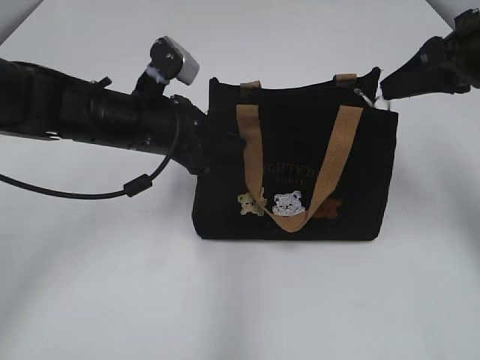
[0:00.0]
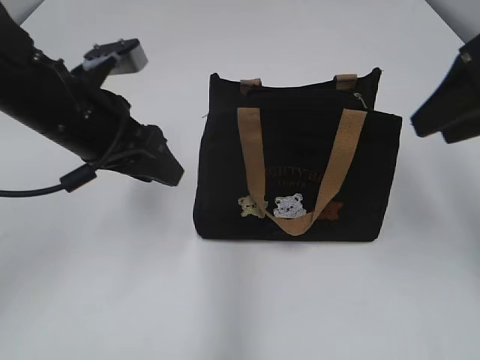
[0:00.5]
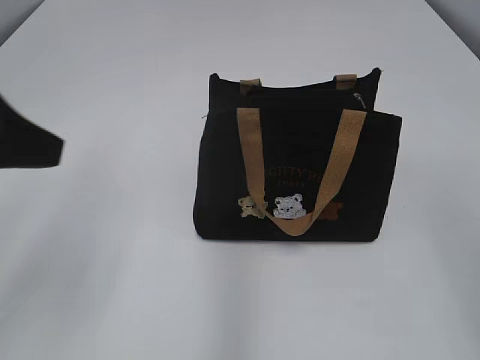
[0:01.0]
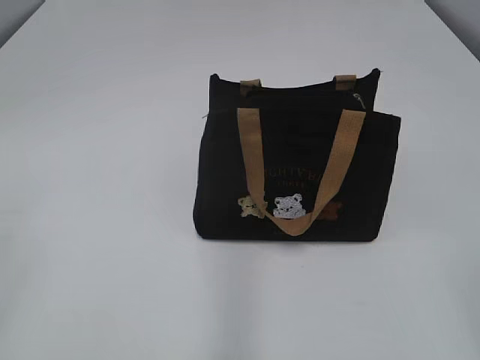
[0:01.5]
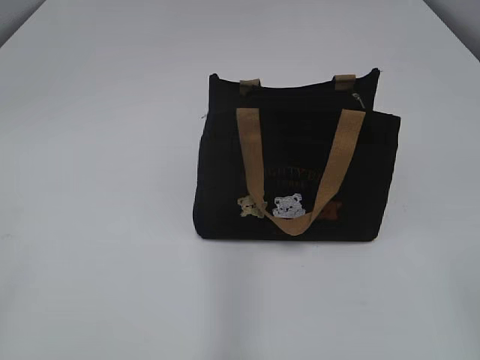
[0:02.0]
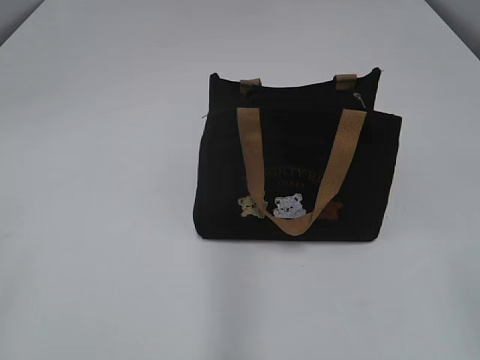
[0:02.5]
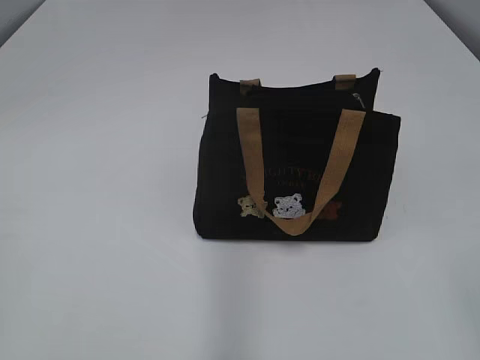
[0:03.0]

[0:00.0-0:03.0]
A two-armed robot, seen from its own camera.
0:00.0 to 0:01.5: The left gripper moves backward, upward and to the left, some 30 cm, and opens its fingers. Meanwhile the right gripper goes roughly 25 cm backward, and opens up.

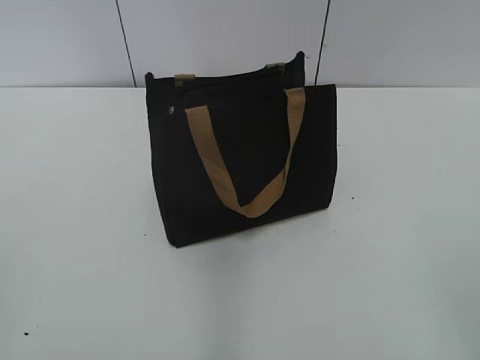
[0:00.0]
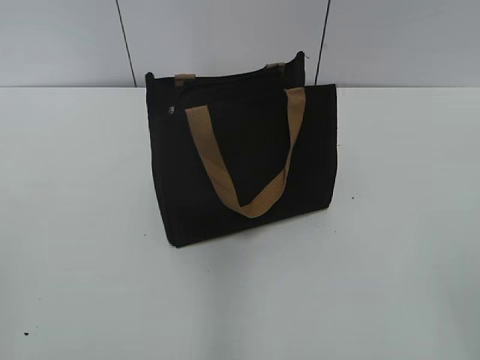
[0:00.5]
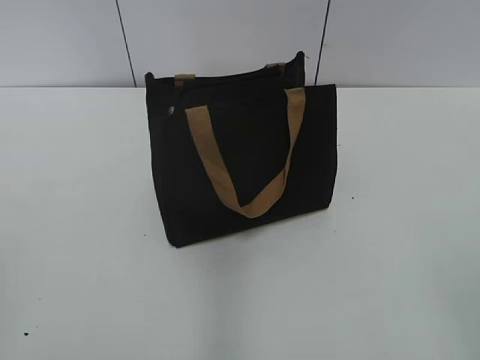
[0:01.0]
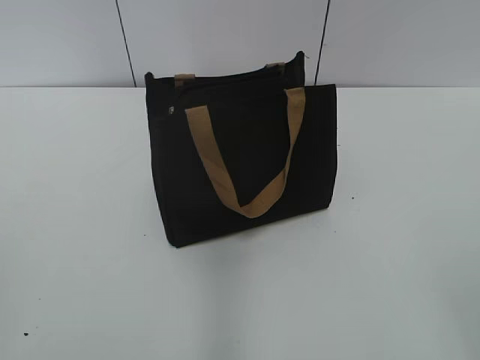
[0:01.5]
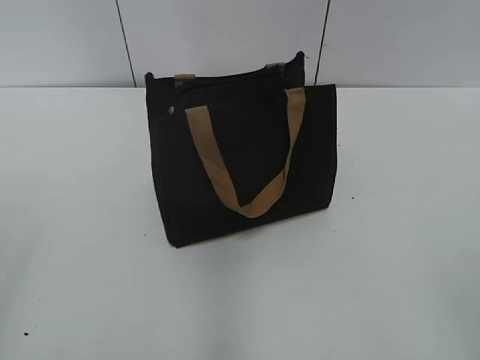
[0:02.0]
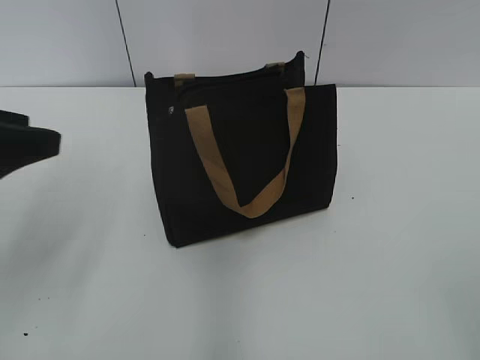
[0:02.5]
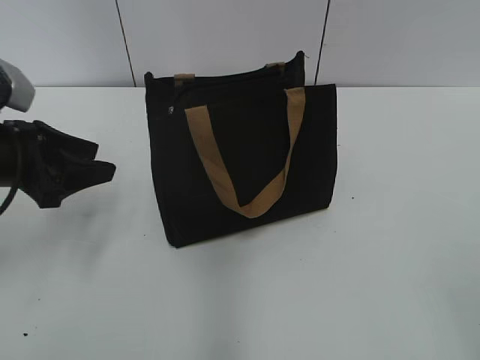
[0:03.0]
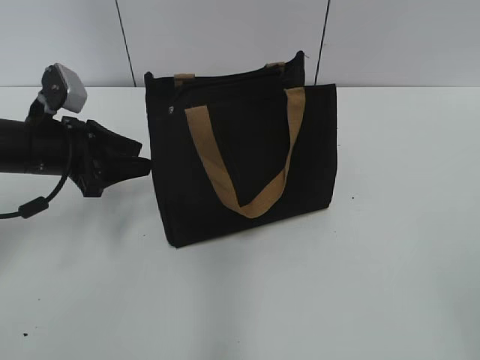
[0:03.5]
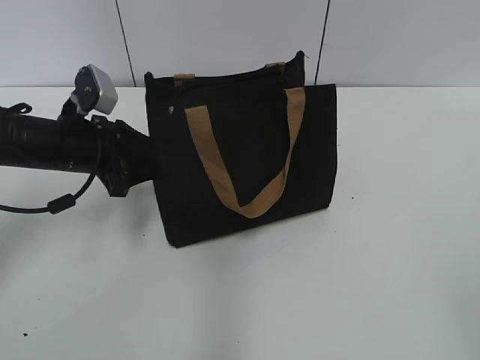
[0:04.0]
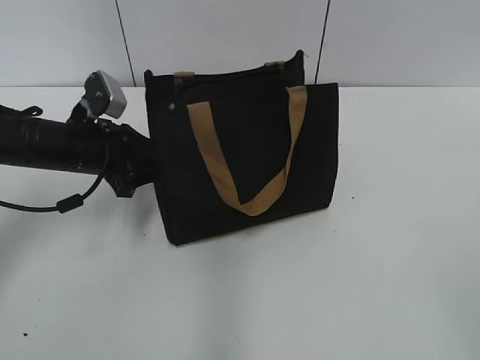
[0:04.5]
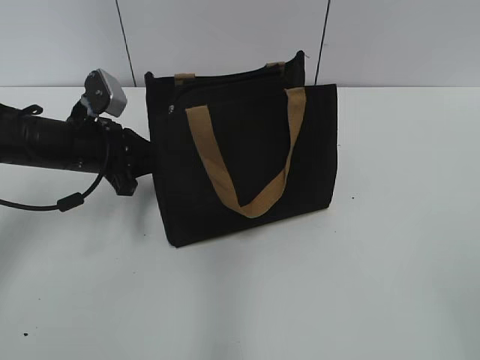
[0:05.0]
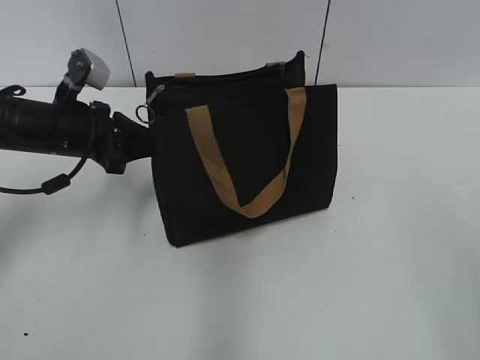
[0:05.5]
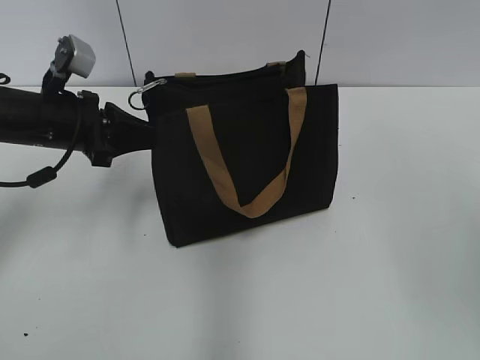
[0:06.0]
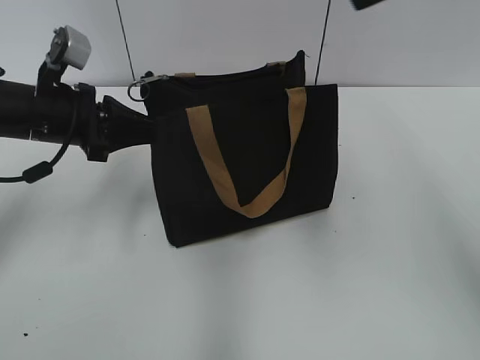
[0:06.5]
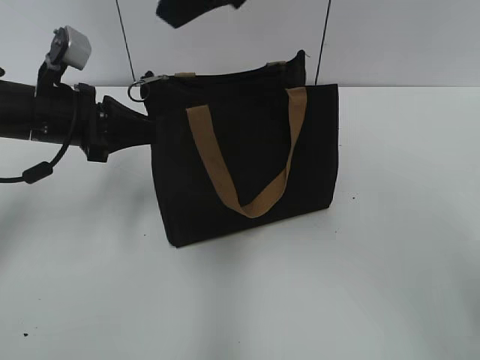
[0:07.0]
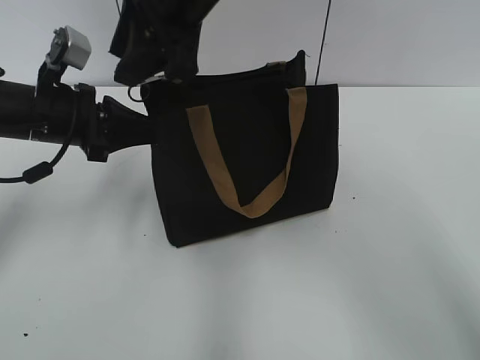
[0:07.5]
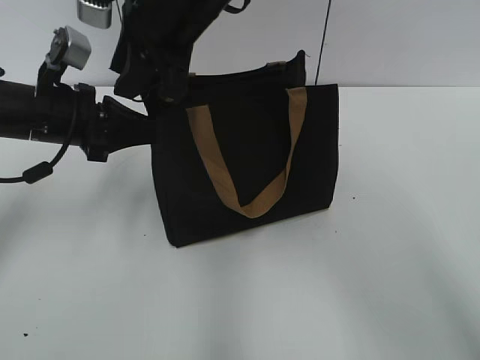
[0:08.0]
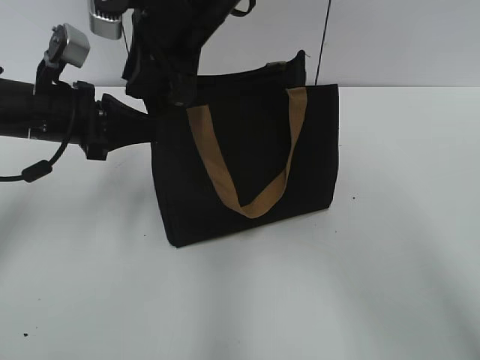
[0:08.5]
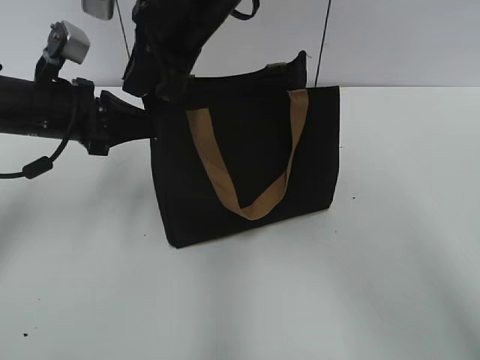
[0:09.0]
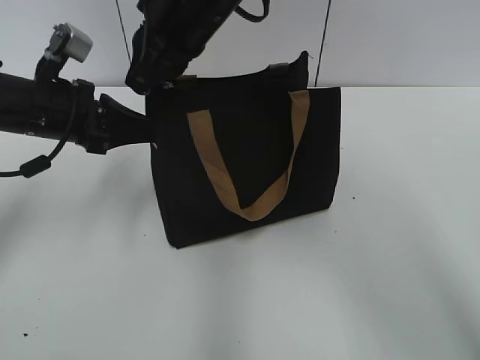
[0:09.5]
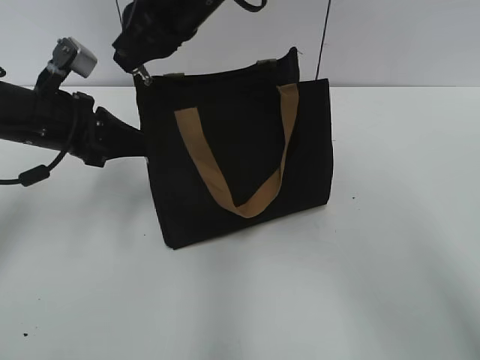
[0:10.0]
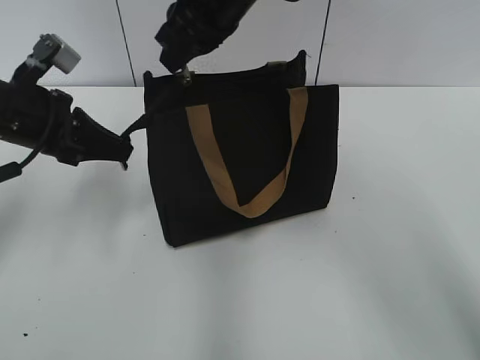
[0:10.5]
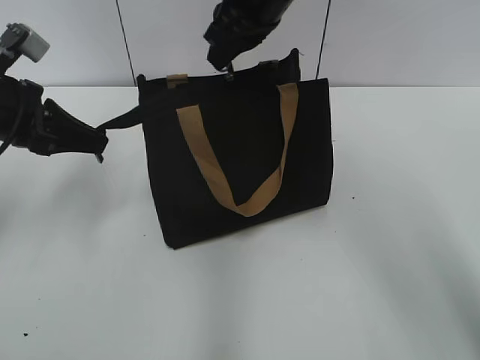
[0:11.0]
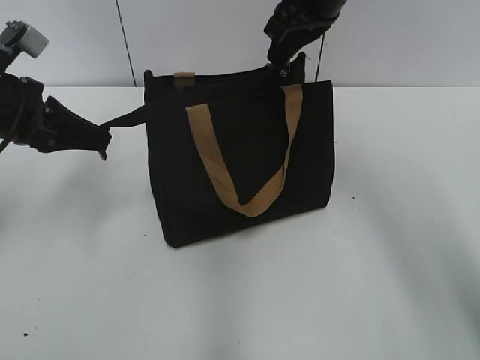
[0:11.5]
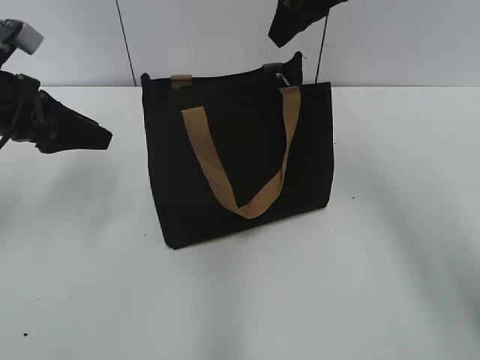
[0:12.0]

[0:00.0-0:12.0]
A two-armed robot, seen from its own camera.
Step, 0:00.0 to 0:11.5: Zip up the bag with your right hand.
0:02.0 to 0:04.0: The left gripper heads forward and downward, covering approximately 35 cm.
0:04.0 to 0:06.0: The left gripper closes its fingers.
0:06.0 to 0:08.0: The right gripper heads to the left and forward, covering some 35 cm.
0:08.0 to 0:10.0: The right gripper closes up.
0:10.0 to 0:12.0: The right gripper travels to the right by roughly 15 cm, and opens up. The left gripper shifts by roughly 5 cm, and opens its fingers.

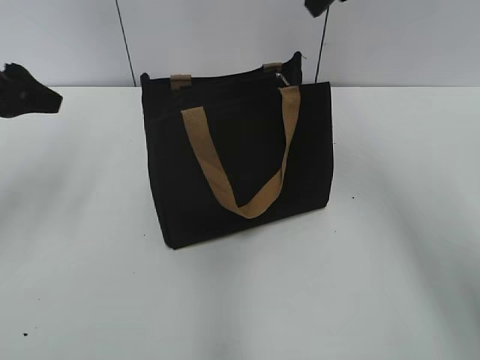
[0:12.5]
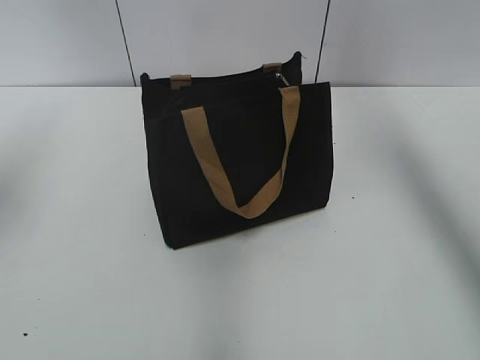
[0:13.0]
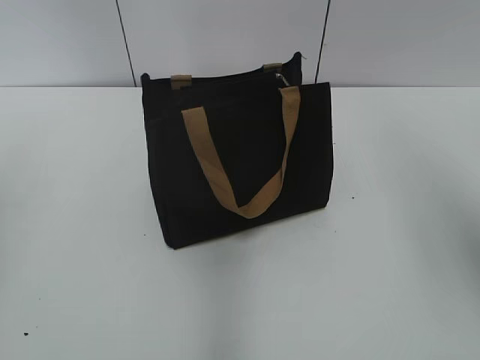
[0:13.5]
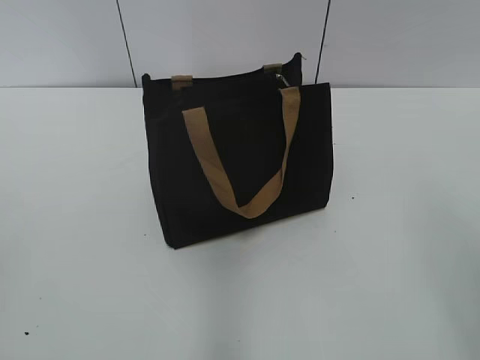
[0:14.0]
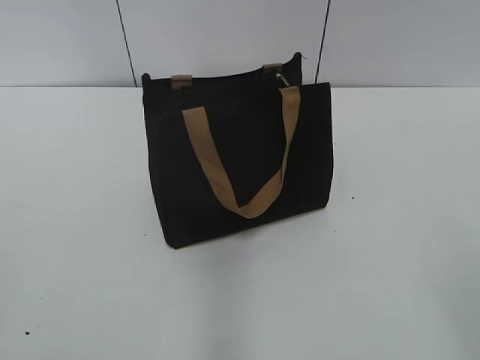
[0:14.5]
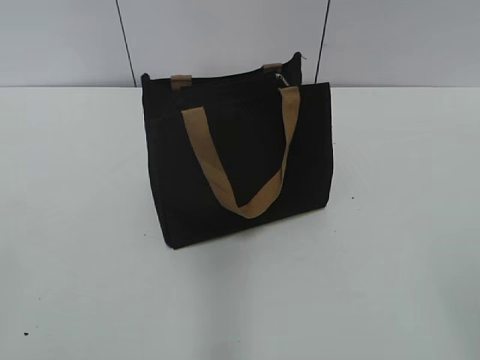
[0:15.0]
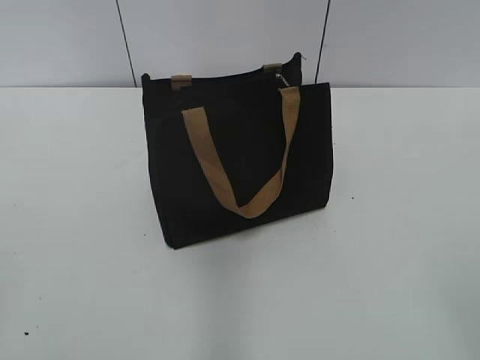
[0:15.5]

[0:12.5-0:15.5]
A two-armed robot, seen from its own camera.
0:12.5 to 0:14.0: The right gripper goes about 35 cm backward and to the right. Meanwhile the left gripper is displaced backward by about 25 cm.

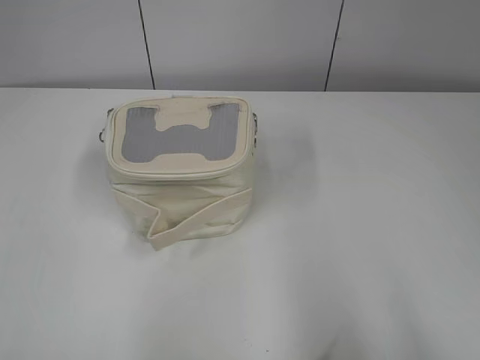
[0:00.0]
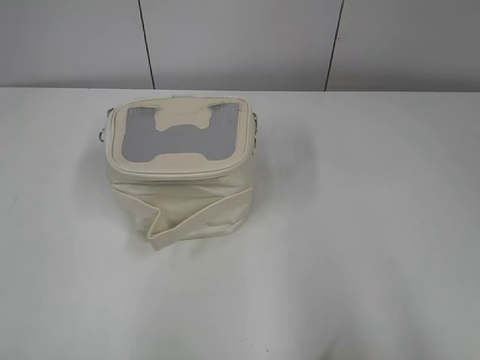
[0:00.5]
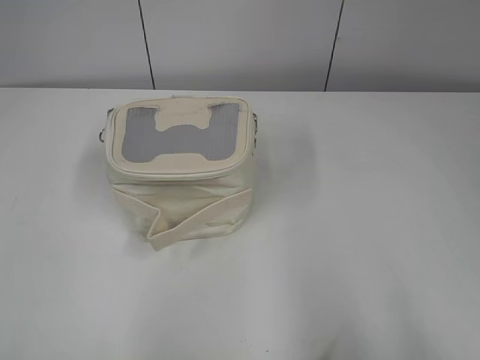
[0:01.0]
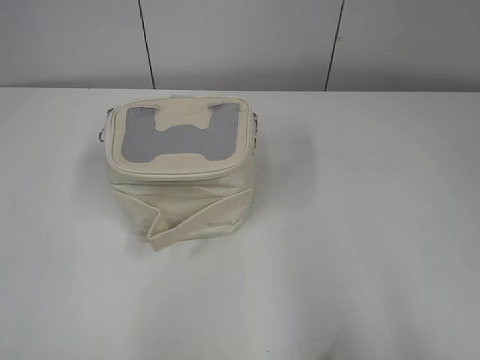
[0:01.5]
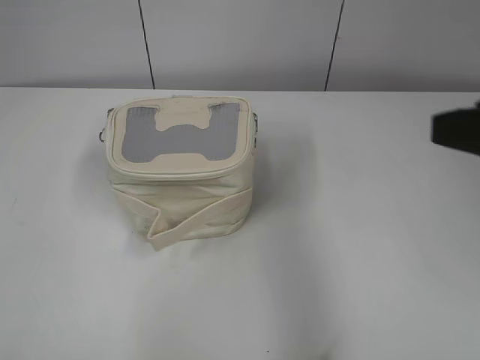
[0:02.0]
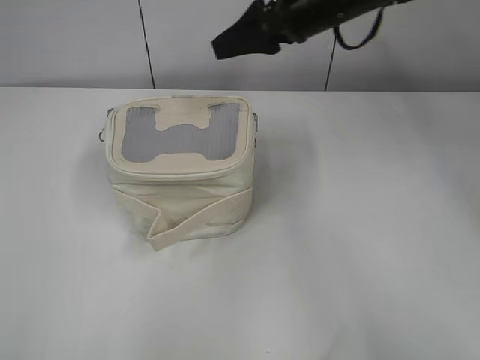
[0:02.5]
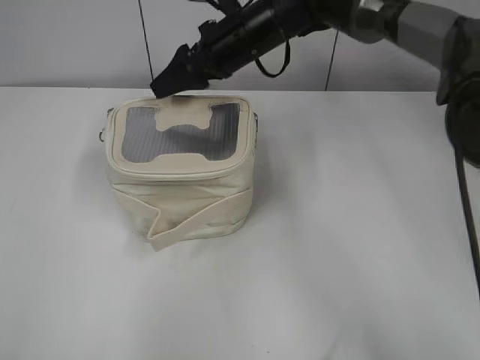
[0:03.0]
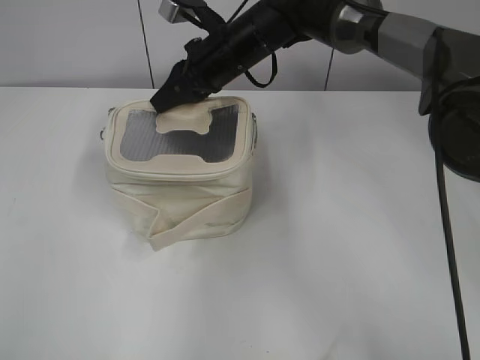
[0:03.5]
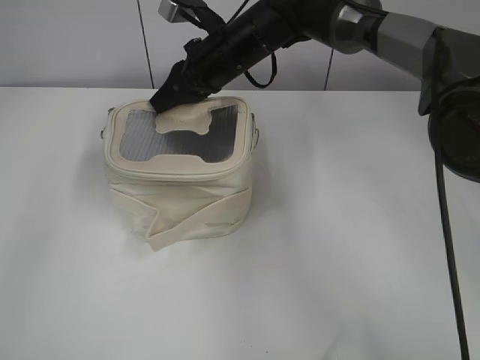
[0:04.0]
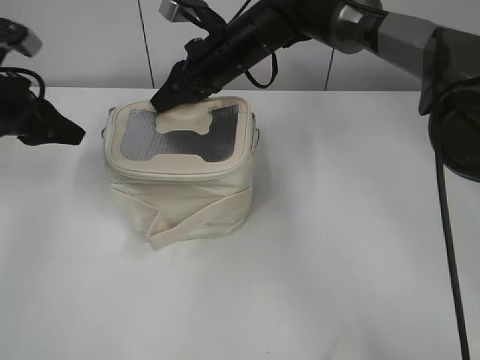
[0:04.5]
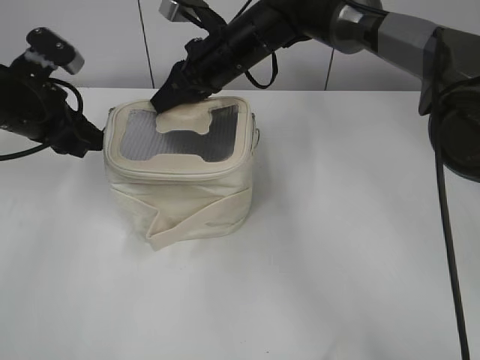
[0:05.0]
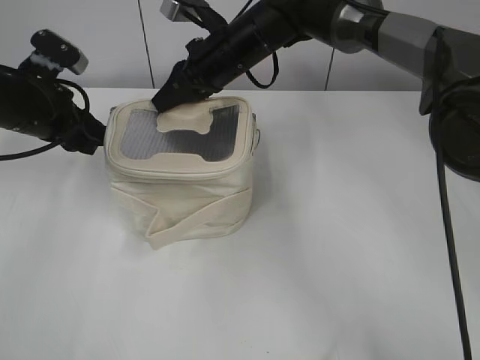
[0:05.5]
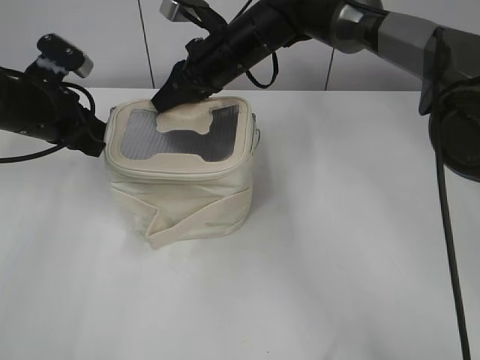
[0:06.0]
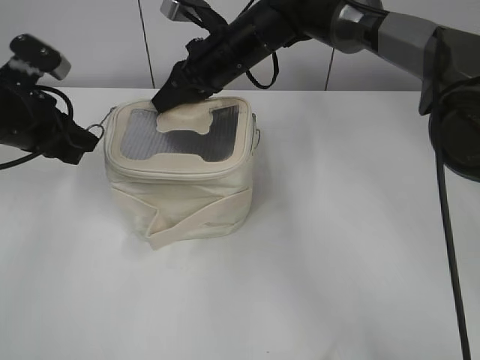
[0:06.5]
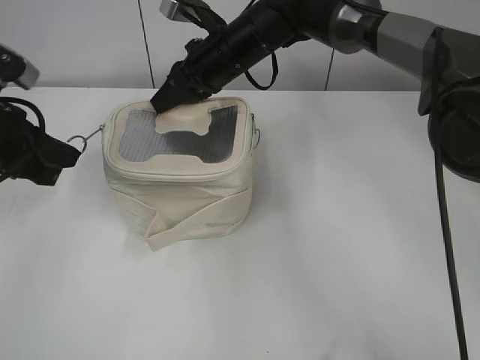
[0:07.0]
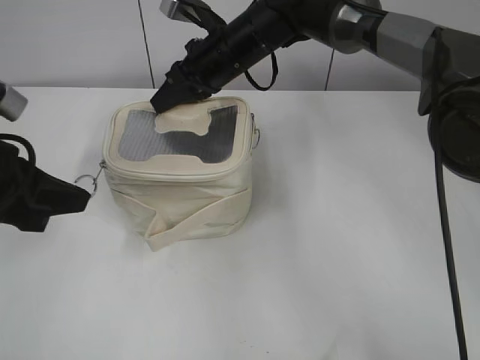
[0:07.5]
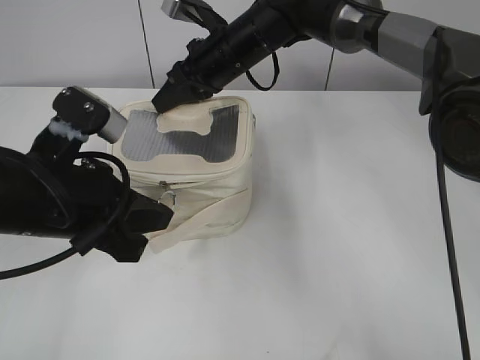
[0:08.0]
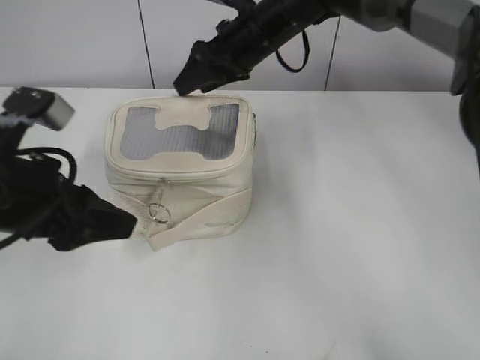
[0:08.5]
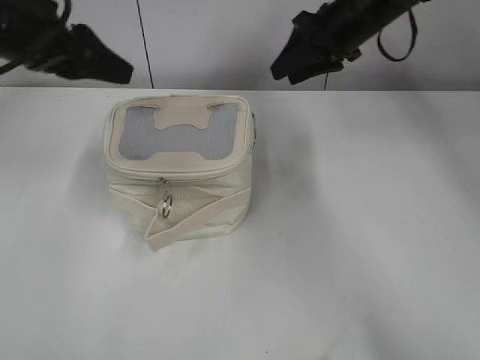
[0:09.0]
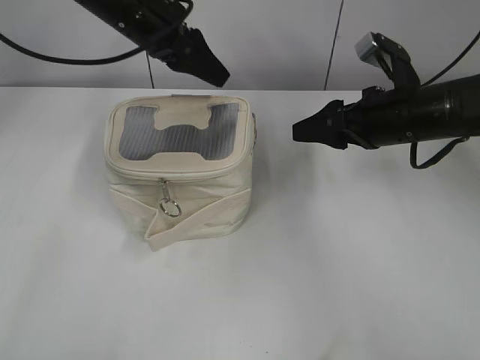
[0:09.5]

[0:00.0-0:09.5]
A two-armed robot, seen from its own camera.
Step, 0:00.0 to 0:08.0: Zip up the bag with your left hand.
0:02.0 to 0:04.0: The left gripper goes roughly 25 cm forward. Meanwhile the right gripper shifts about 40 cm forward, to the left and downward, and closes its fingers.
0:04.0 to 0:05.5: The left gripper travels downward and forward by some 20 cm.
0:05.5 to 0:07.5: The left gripper shifts approximately 15 cm backward, and closes its fingers.
0:07.5 to 0:09.5: The left gripper goes approximately 25 cm forward and to the right, and opens its fingers. Meanwhile the right gripper heads to the right and backward, covering roughly 25 cm, and opens.
